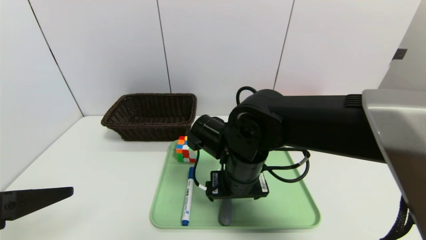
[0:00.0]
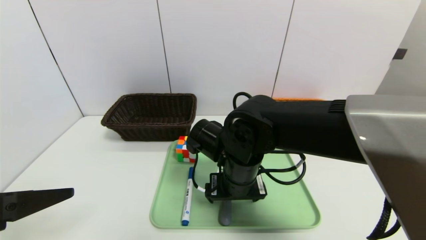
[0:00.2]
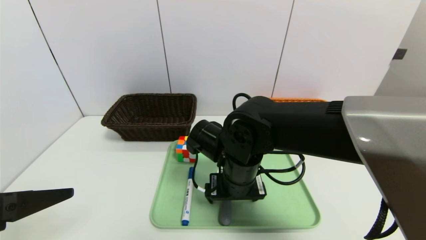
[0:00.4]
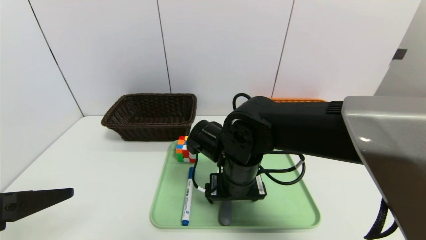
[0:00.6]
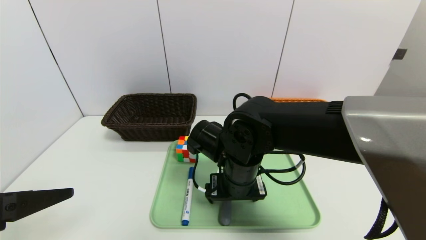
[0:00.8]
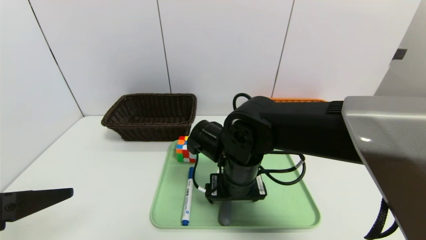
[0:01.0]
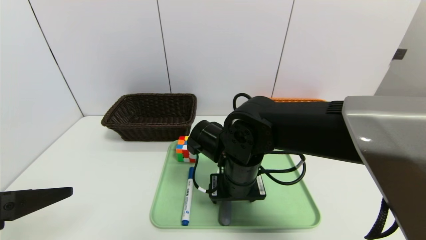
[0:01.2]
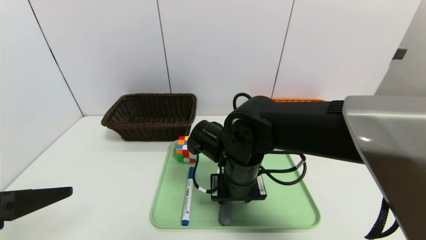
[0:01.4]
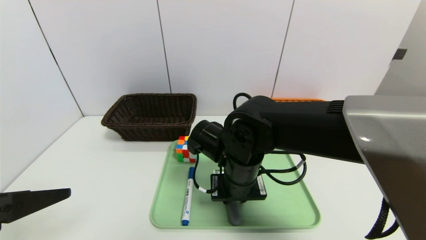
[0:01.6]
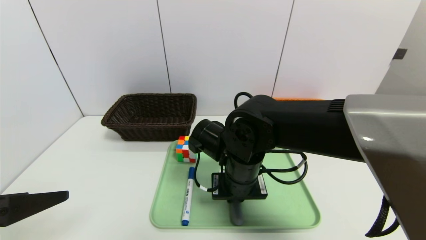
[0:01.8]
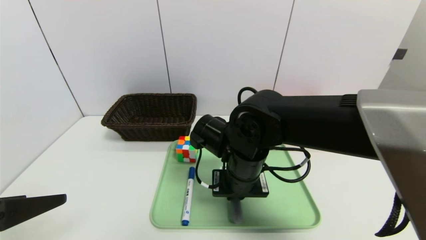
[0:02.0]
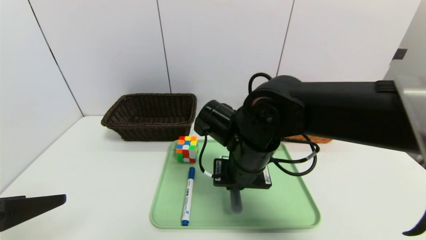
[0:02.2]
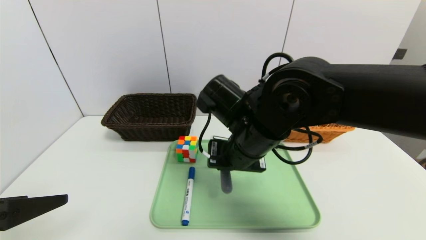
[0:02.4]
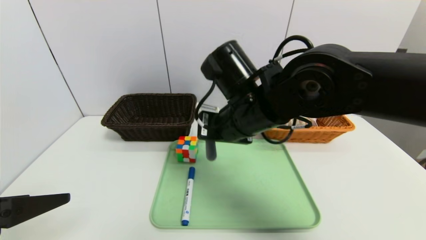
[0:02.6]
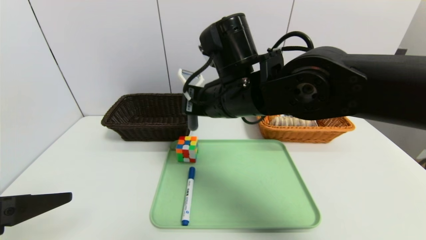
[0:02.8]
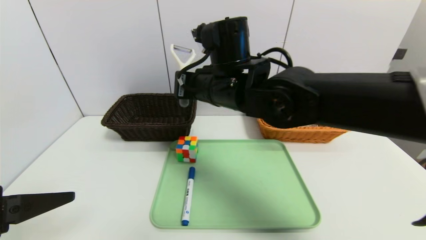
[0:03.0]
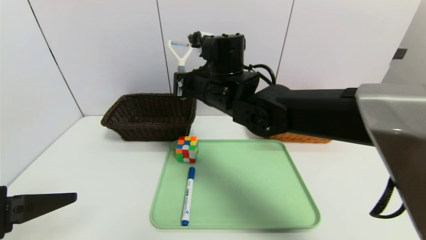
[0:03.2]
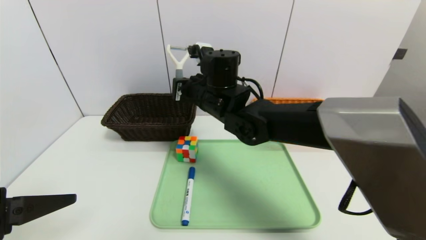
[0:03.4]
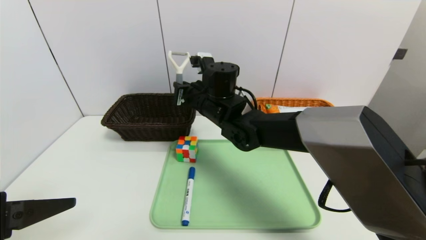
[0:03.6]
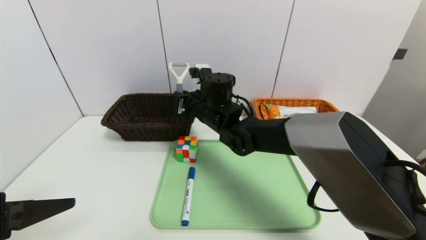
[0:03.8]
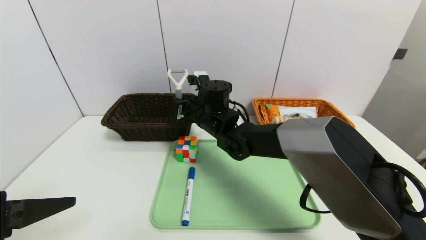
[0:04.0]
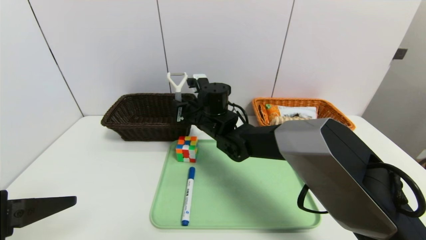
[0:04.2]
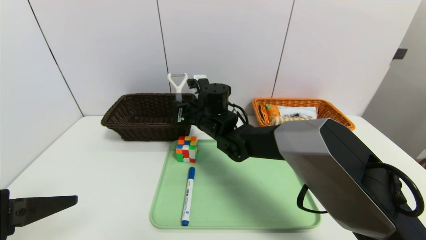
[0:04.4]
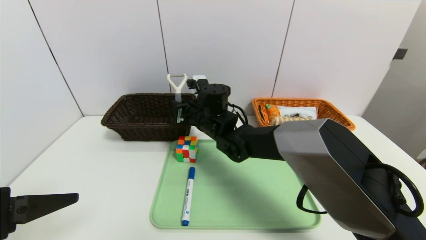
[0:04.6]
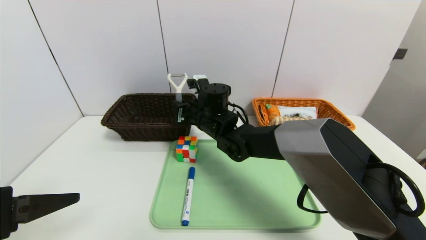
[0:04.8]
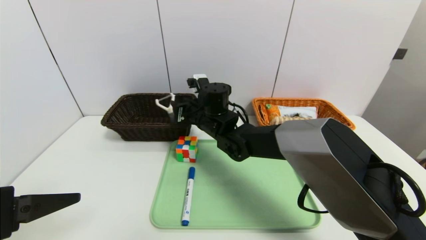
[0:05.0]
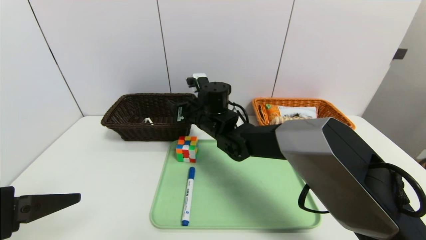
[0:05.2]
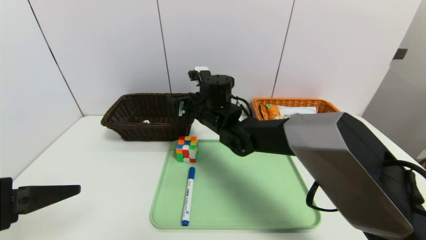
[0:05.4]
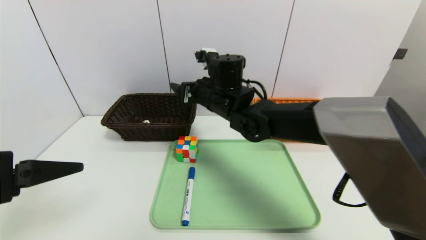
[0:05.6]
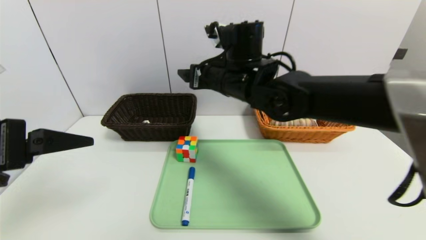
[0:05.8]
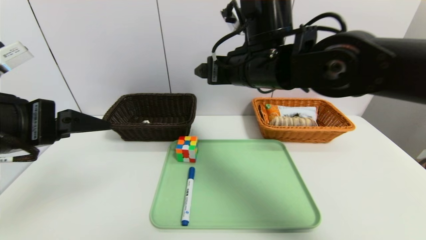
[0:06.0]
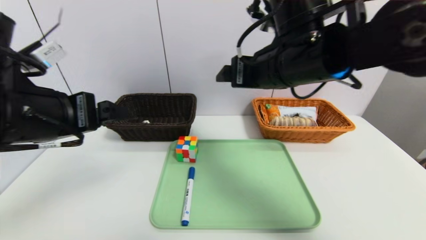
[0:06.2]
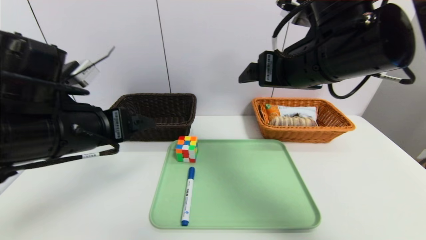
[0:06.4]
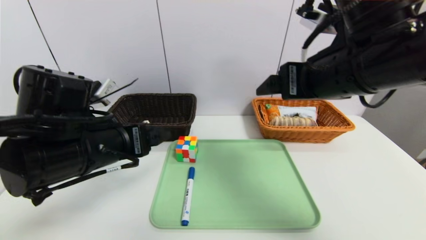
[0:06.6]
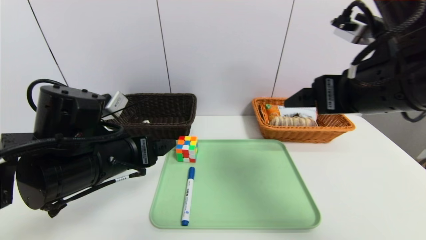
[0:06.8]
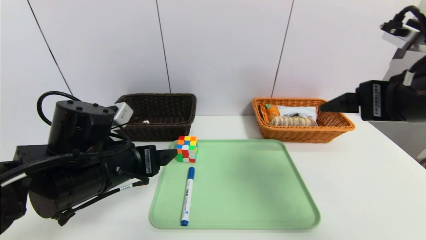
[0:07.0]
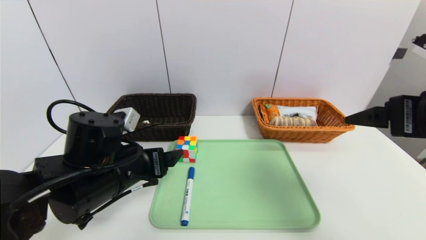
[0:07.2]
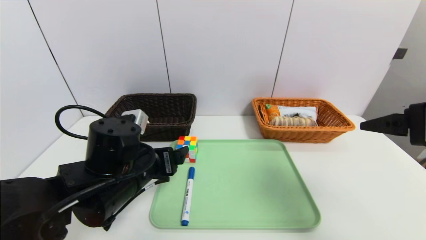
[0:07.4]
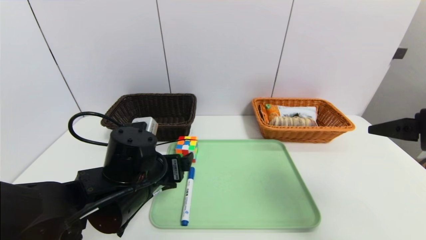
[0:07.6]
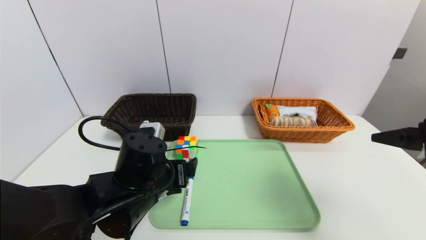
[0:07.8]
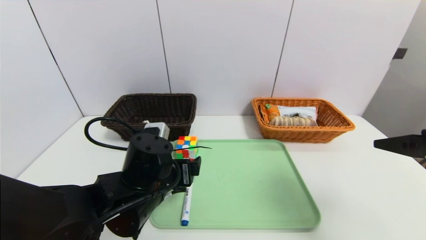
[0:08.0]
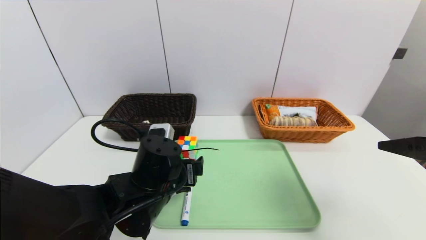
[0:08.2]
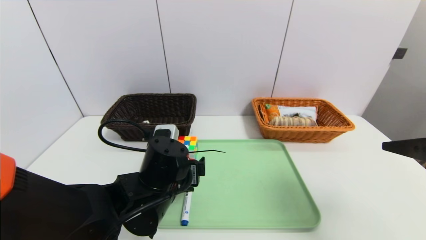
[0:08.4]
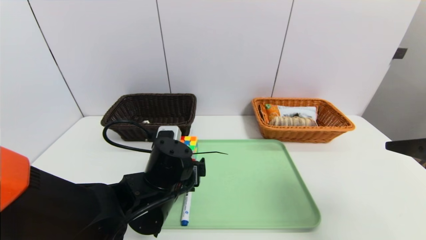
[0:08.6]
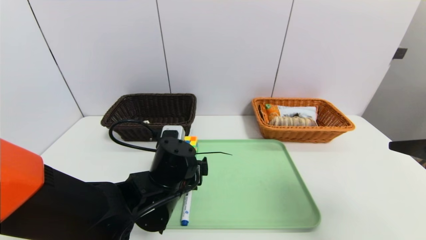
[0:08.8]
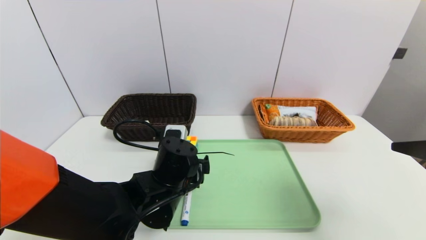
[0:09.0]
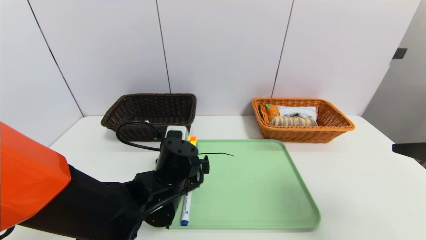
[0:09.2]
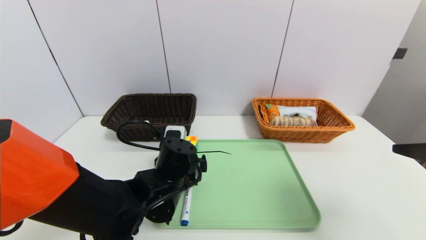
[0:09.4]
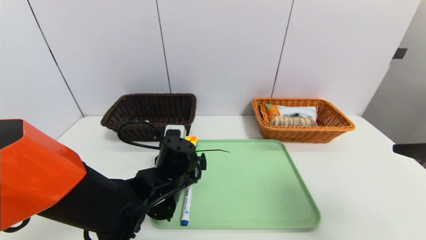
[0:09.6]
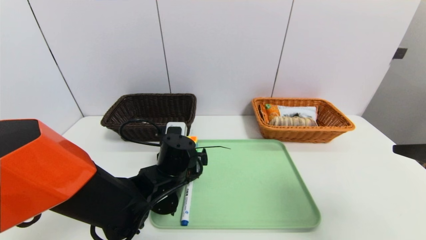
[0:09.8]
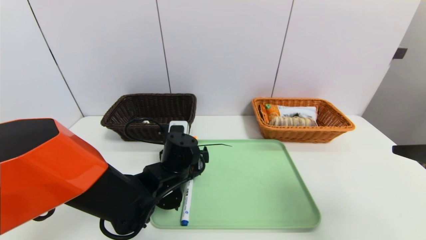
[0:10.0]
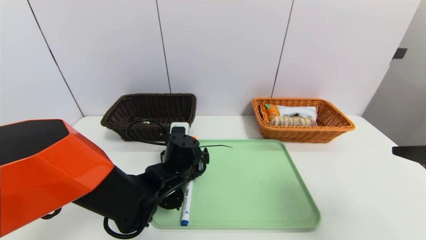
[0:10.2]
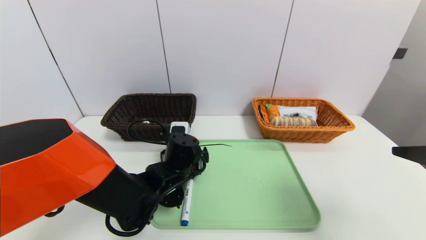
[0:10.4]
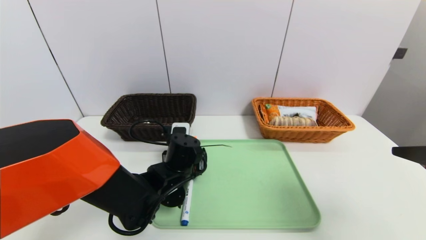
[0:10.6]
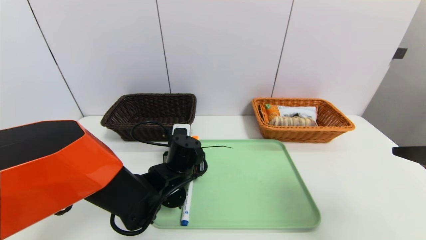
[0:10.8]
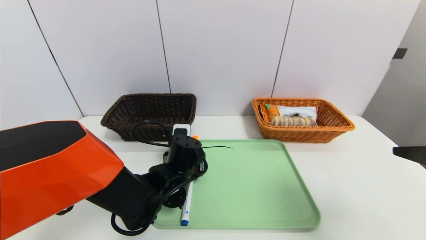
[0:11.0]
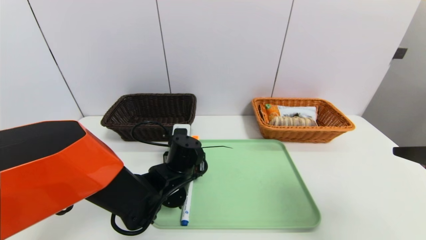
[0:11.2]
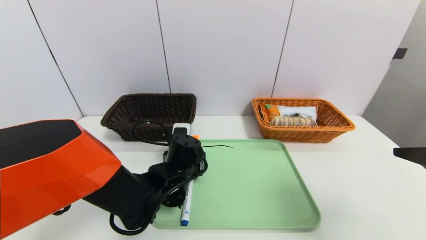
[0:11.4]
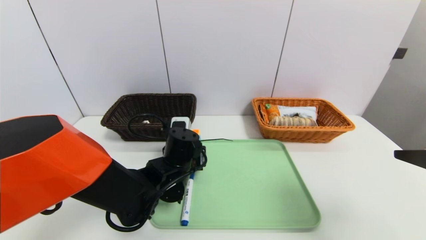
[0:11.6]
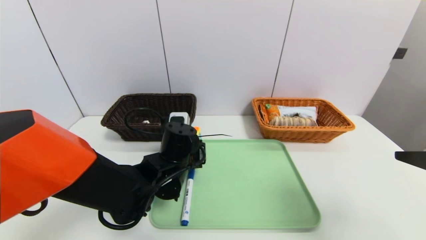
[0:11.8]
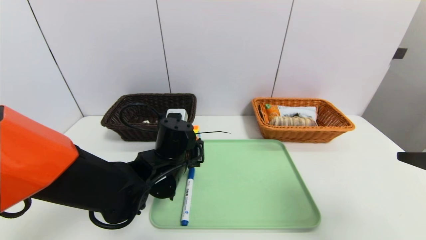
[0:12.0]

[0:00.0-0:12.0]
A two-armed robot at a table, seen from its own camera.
Task of the whole recording: place the food in the right basket with the right gripper, and place the non food items in the left basket with the left gripper.
0:00.0 to 0:01.6: The right gripper closes up.
0:01.6 to 0:03.0: The right gripper moves upward and forward, approximately 15 cm.
0:03.0 to 0:04.4: The right gripper travels downward and forward by some 15 cm.
0:04.4 to 0:06.0: The left gripper shifts some 10 cm forward and upward, while the right gripper travels upward, backward and to the right by roughly 20 cm, and opens.
0:06.0 to 0:07.6: The left gripper heads downward and to the right, covering roughly 20 cm; the right gripper shifts about 30 cm to the right and backward.
0:07.6 to 0:09.0: The left gripper shifts by roughly 5 cm.
0:09.0 to 0:10.4: The left gripper moves approximately 5 cm.
0:10.4 to 0:12.0: The left gripper closes up.

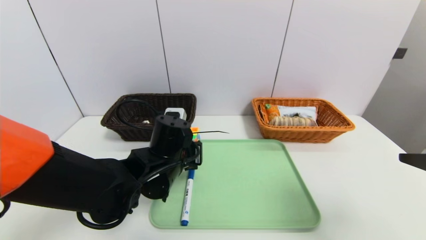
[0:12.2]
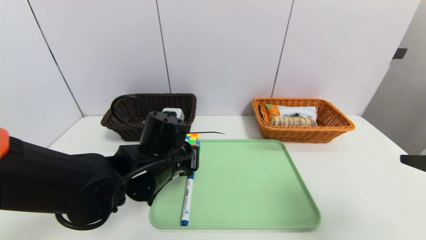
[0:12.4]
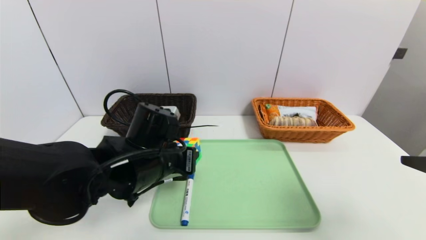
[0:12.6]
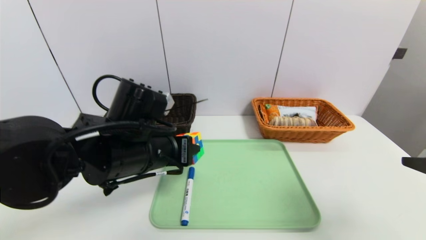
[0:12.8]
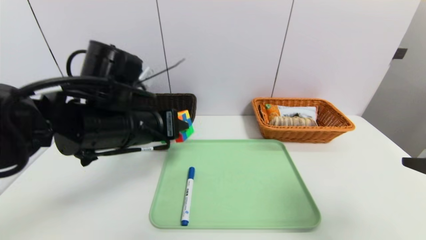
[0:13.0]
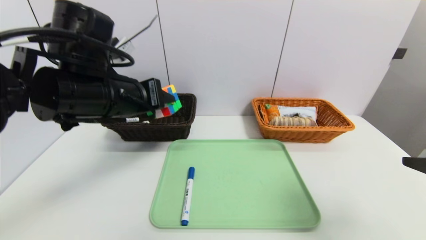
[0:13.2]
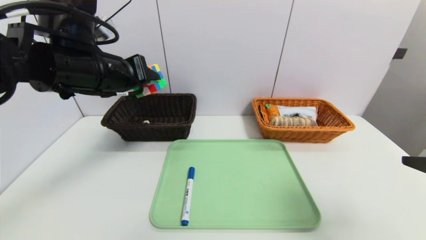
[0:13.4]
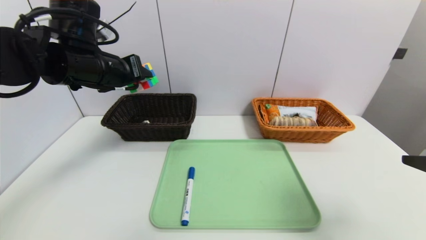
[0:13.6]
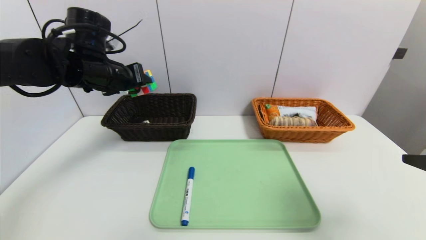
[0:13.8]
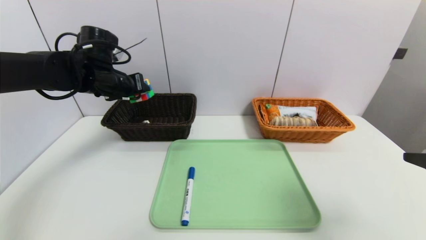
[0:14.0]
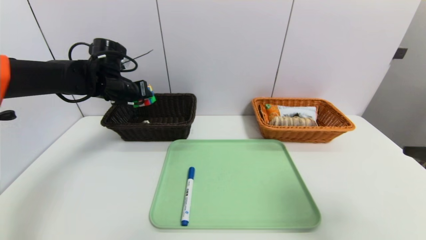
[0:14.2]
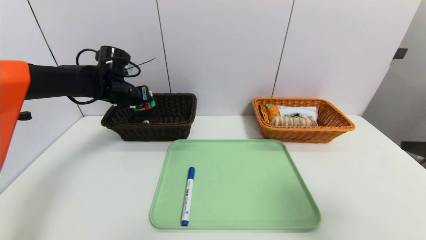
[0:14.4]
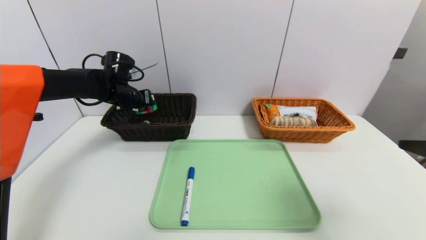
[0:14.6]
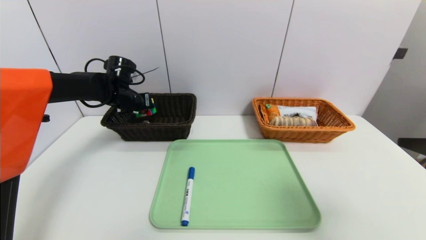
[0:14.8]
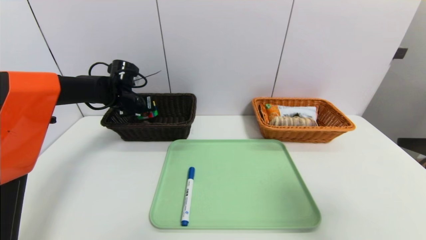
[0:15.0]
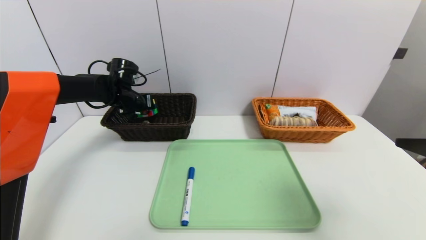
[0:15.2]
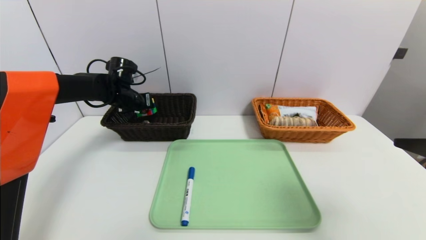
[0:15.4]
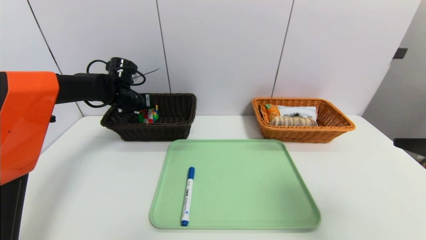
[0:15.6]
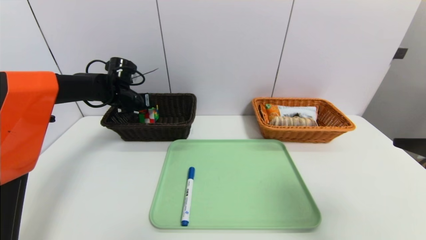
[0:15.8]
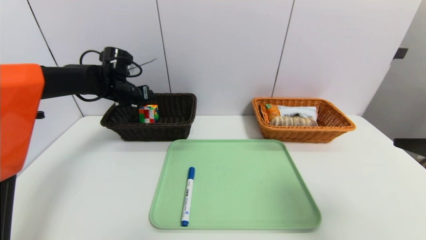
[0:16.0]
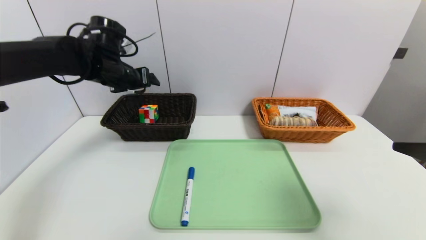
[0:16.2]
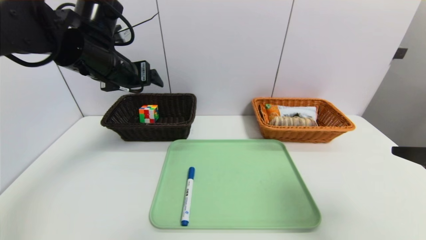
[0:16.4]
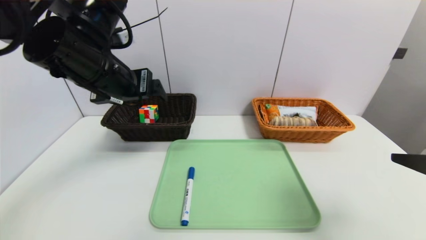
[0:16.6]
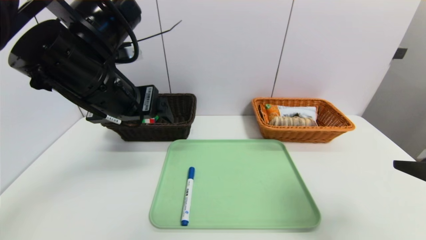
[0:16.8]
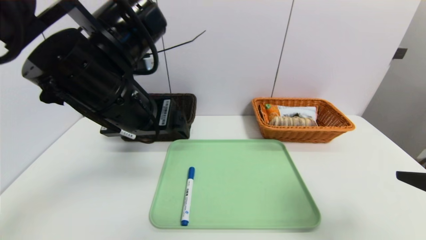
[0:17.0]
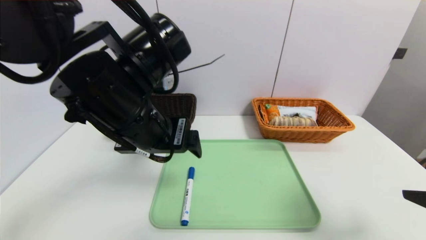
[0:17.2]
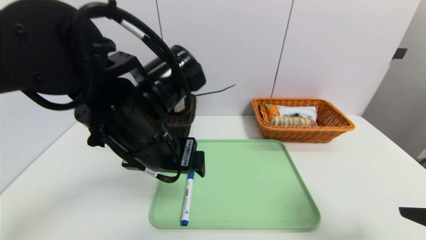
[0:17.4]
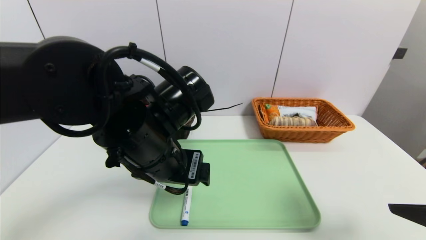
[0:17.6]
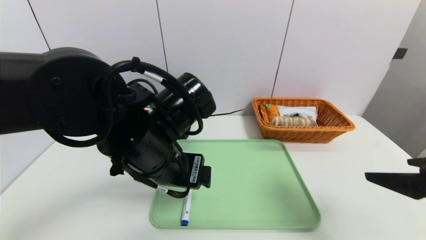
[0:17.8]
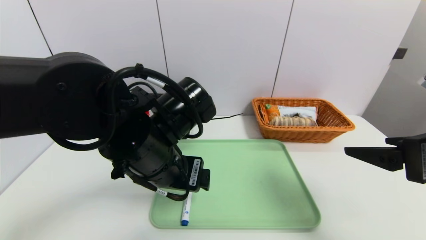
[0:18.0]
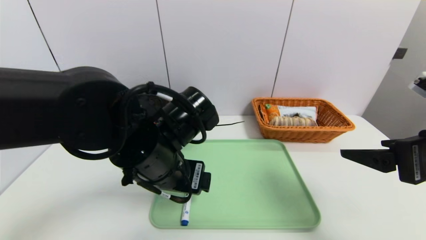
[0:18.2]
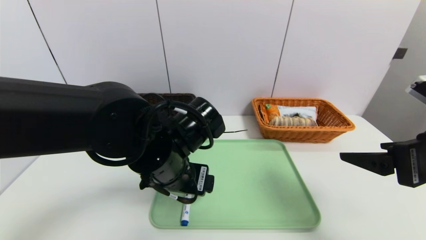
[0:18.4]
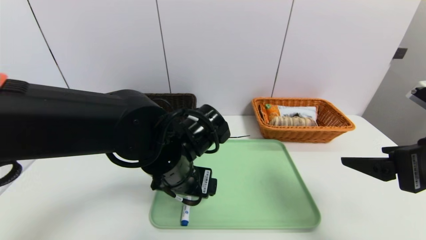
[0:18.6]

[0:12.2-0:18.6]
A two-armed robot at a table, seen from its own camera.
Task of the whole recording: place the food in the right basket with the right gripper, and place the non food items in the left basket with the left gripper.
Step, 0:12.2 to 0:16.0: Grasp the rubiks cube and put it in the left basket.
0:12.2 to 0:13.8: The left gripper is displaced upward, to the left and forward by roughly 20 cm.
0:13.8 to 0:15.4: The left gripper moves forward and downward, approximately 15 cm.
0:15.4 to 0:17.0: The left gripper goes some 30 cm backward, to the right and upward, and opens up.
0:17.0 to 0:18.6: The right gripper is displaced forward by approximately 5 cm. The left gripper shifts some 15 cm downward and to the right.
